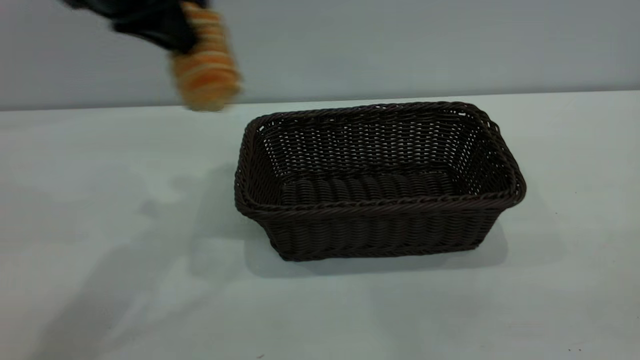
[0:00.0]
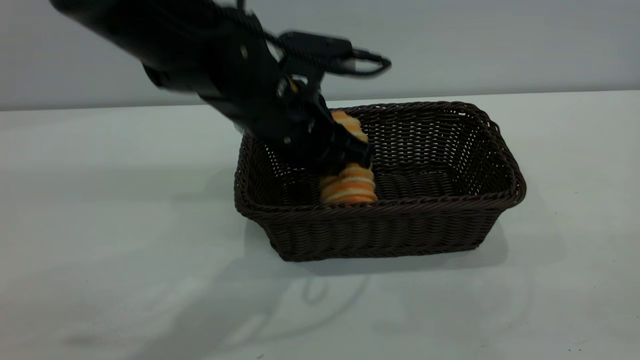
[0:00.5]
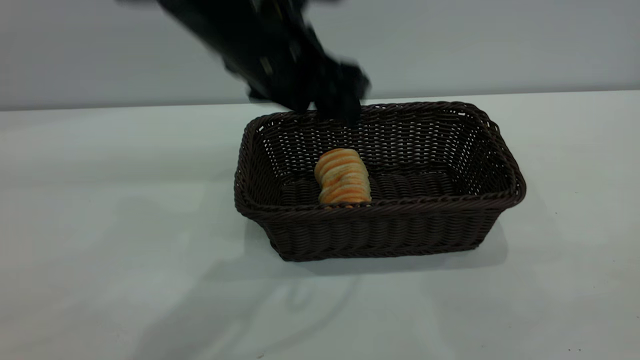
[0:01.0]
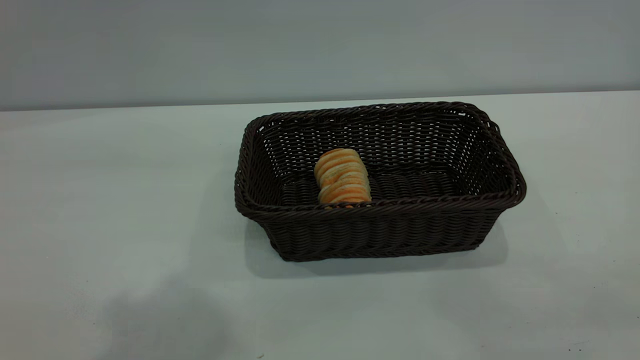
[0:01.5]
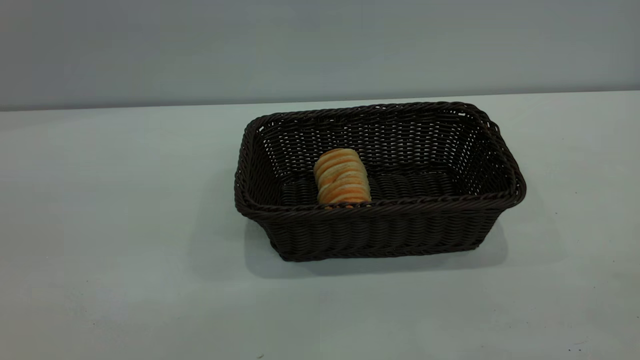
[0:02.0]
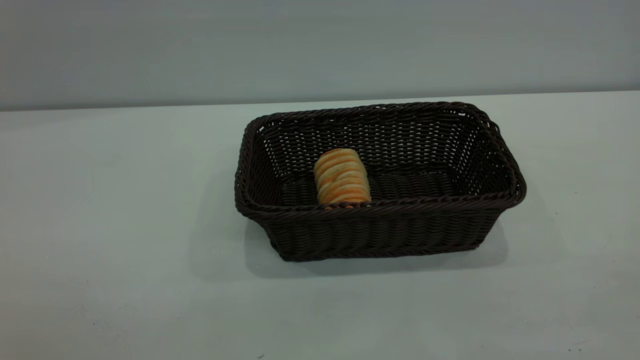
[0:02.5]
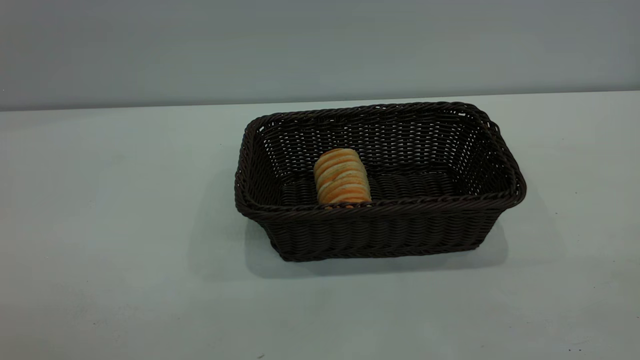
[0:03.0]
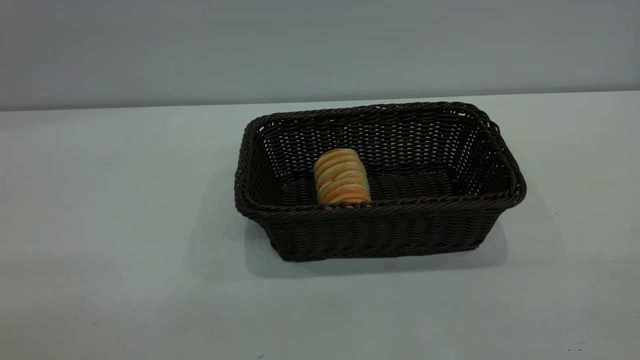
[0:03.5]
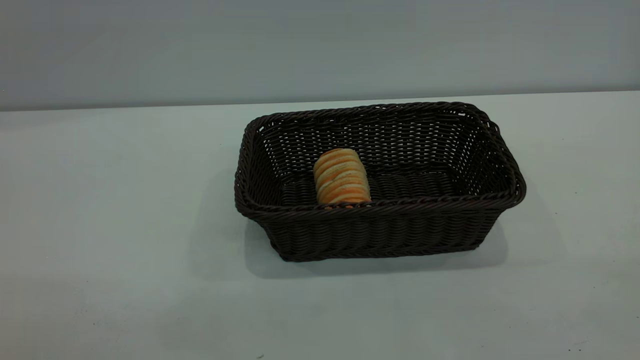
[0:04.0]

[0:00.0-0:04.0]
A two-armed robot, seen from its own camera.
Task of the whole recording: One hand grasps the black basket and places it in the middle of the table, while the other hand picks up the long bread and puts it into the black basket.
Step, 0:00.0 to 0:01.0: place the bread into the basket.
0:00.0 to 0:02.0: The left gripper swings up and down, roughly 30 cm each way, with 2 reversals, and opens.

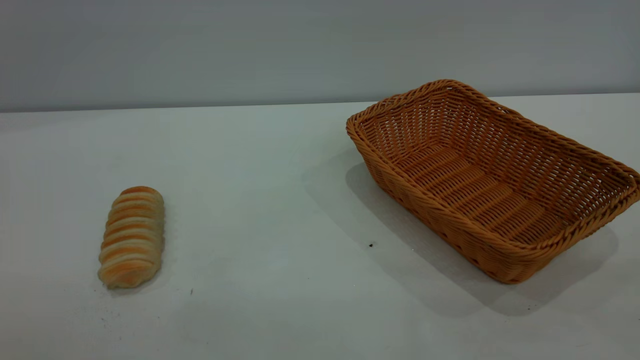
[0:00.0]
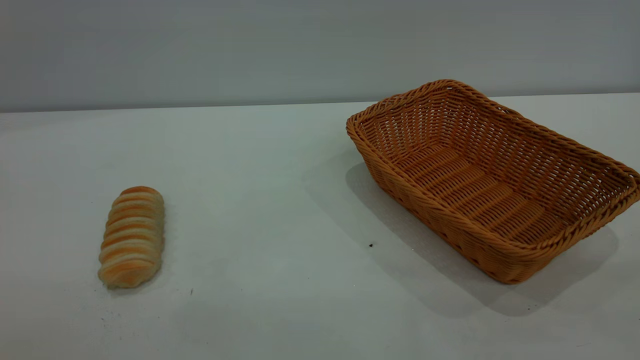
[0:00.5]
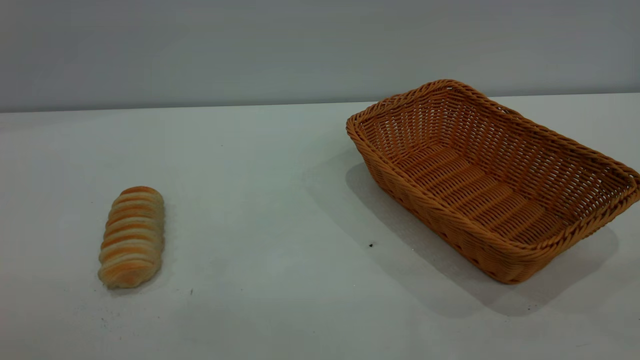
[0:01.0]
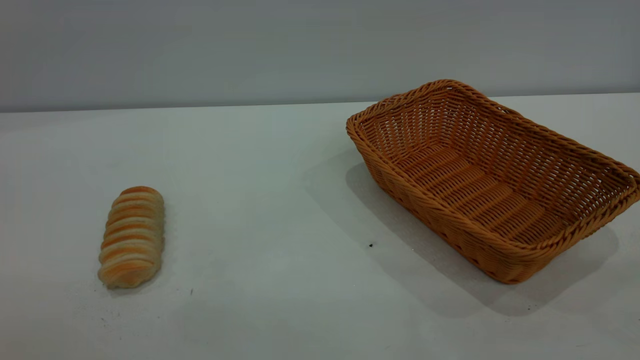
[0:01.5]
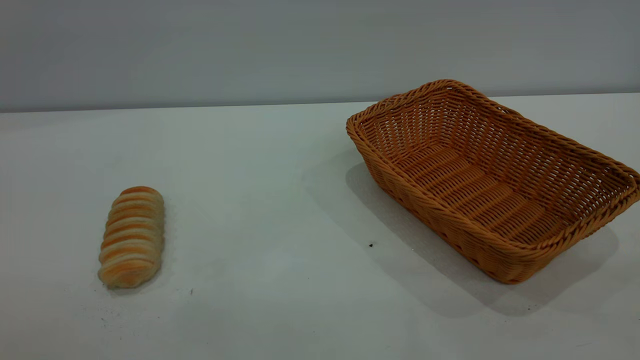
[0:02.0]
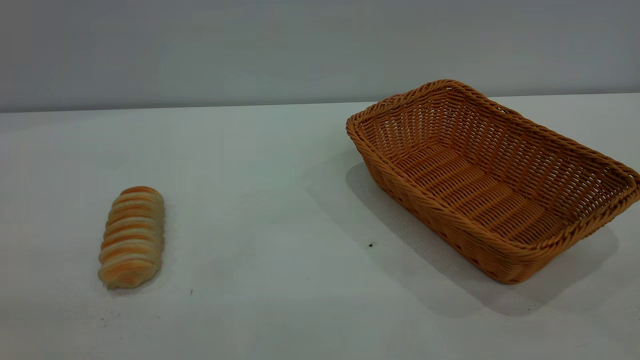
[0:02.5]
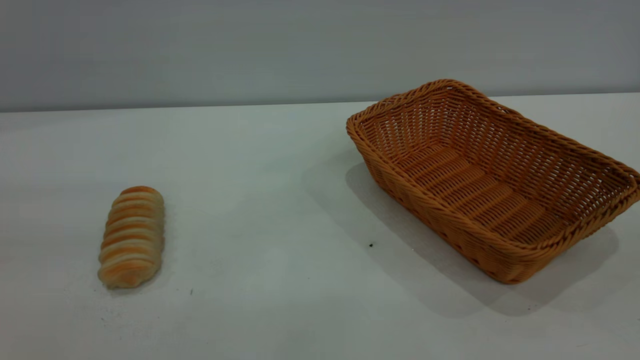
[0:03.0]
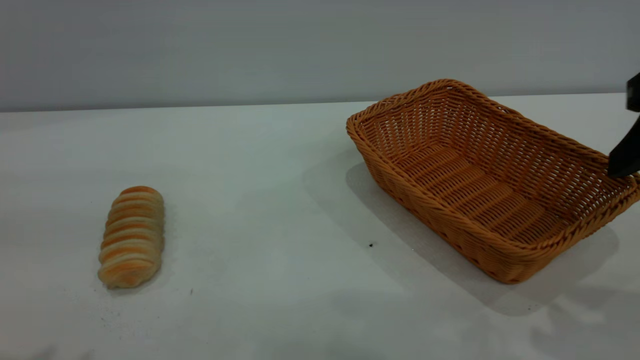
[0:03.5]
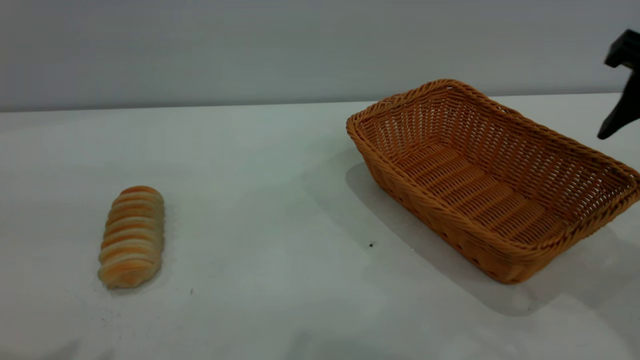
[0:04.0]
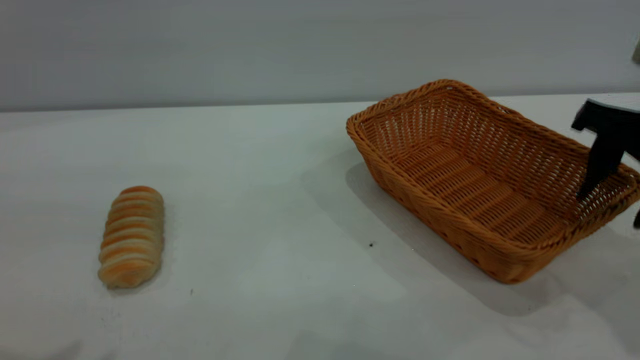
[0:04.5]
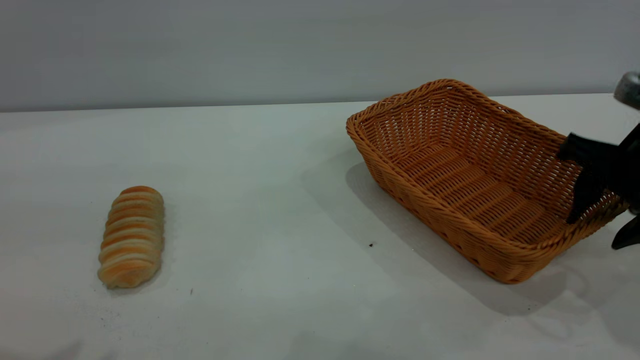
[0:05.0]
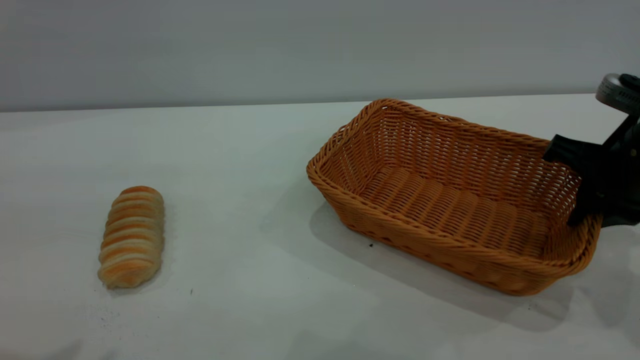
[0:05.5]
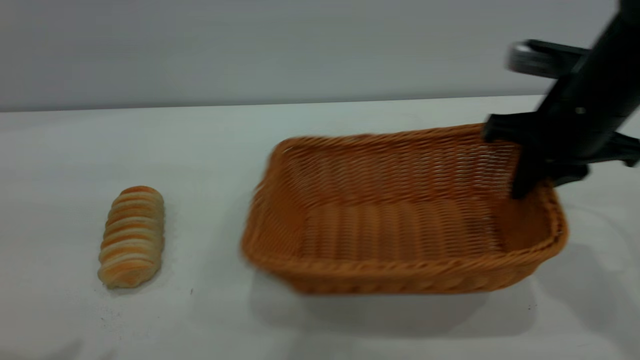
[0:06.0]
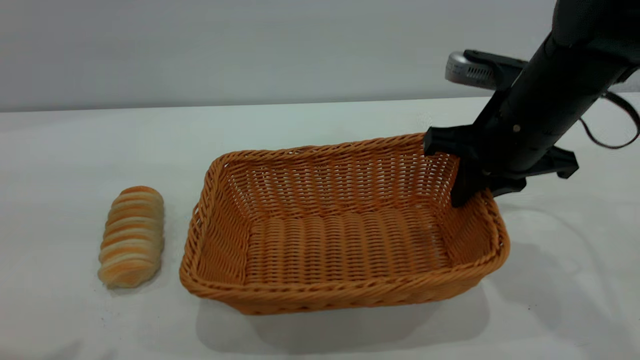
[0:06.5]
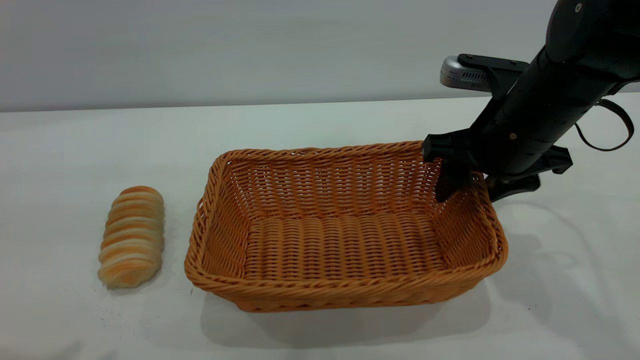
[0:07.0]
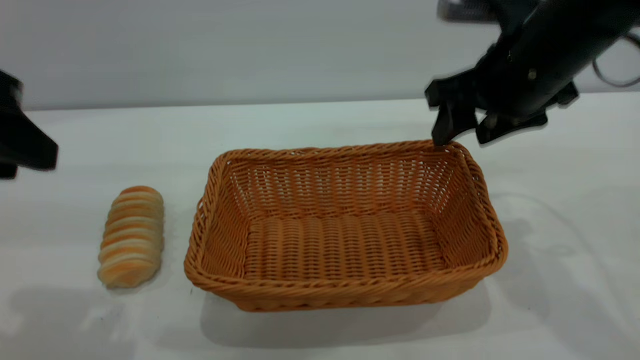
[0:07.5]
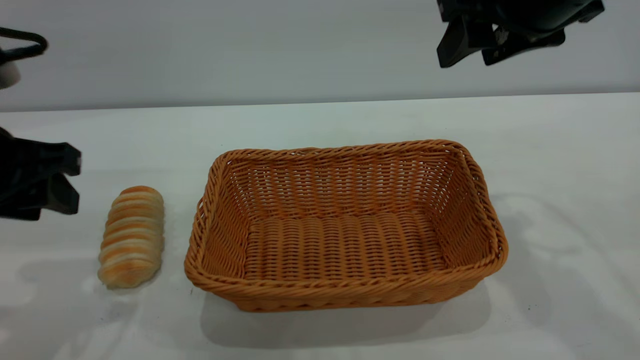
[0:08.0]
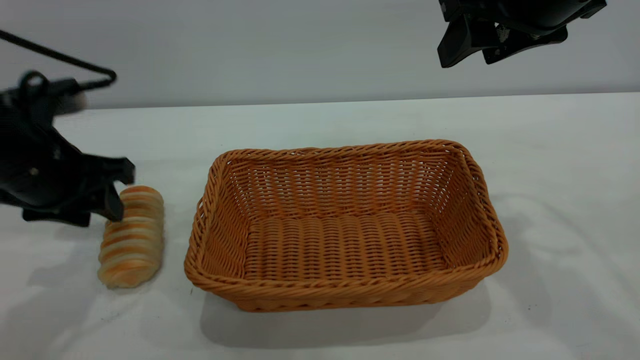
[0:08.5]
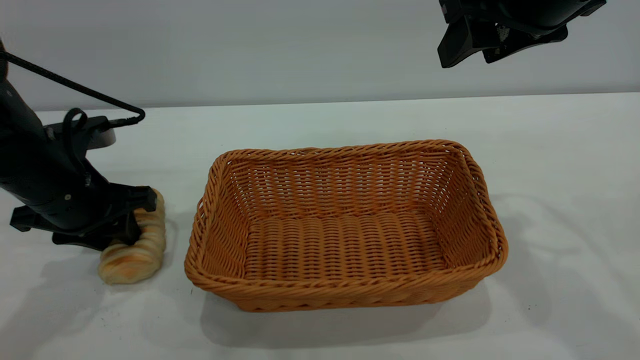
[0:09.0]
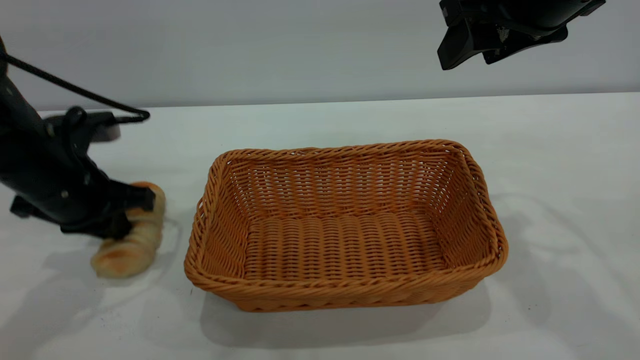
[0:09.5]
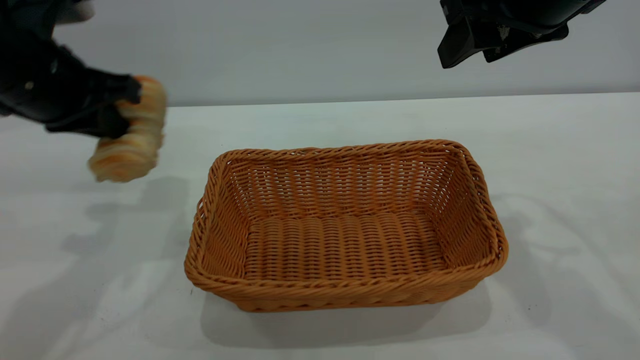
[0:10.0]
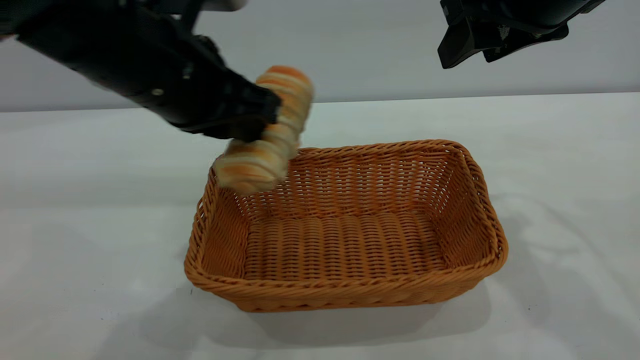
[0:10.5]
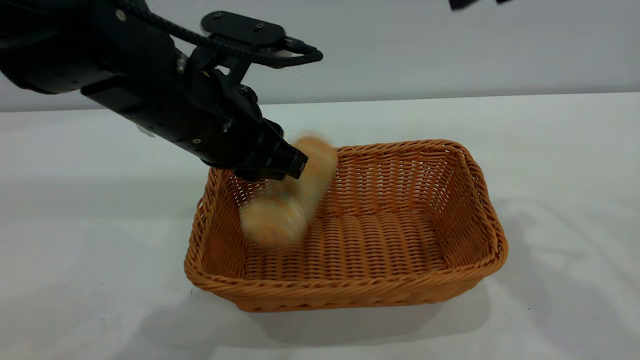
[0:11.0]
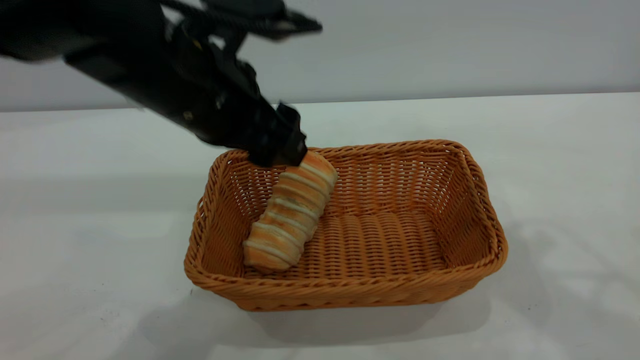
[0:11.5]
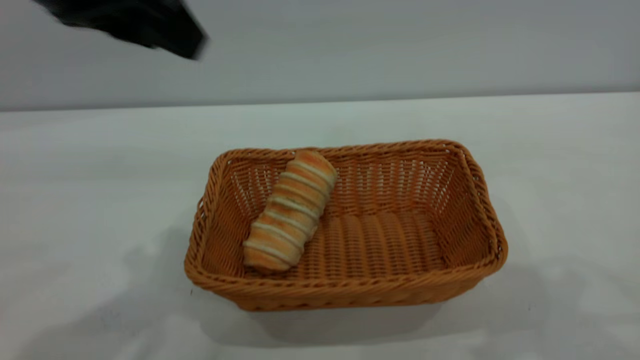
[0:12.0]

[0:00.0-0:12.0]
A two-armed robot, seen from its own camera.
Task of the whole recording: One hand grasps the yellow basket and places it in the middle of the table, while the other hand picks up the long bread and puts it into the yellow basket.
Step, 0:00.0 to 0:07.5: Move the basket to the center of view.
Step, 0:10.0 to 0:11.5: place the bread into the basket.
0:02.0 to 0:04.0: The right gripper moves forward, some 30 cm, and opens.
0:04.0 to 0:06.0: The right gripper heads forward, downward and to the left, covering roughly 10 cm, and closes up.
0:06.0 to 0:08.0: The right gripper goes some 10 cm upward, and opens; the left gripper is displaced downward and forward by about 20 cm.
0:08.0 to 0:10.0: The left gripper heads forward, covering approximately 5 cm, moves approximately 10 cm downward and comes back, and closes.
0:10.0 to 0:12.0: The left gripper heads upward, backward and to the right, covering about 15 cm, and opens, while the right gripper travels upward and backward by about 20 cm.

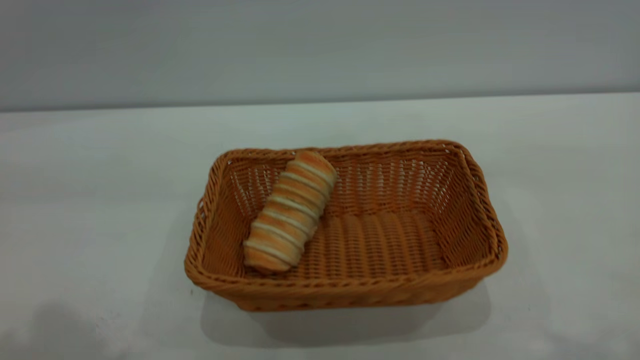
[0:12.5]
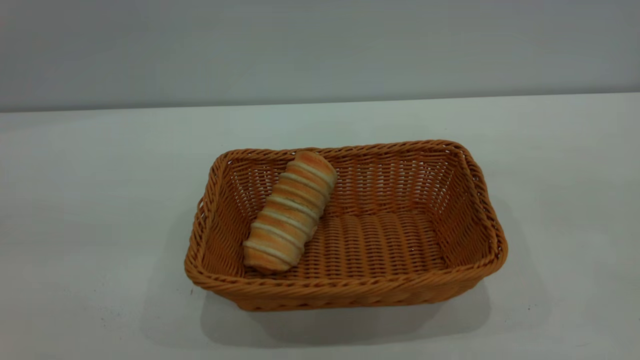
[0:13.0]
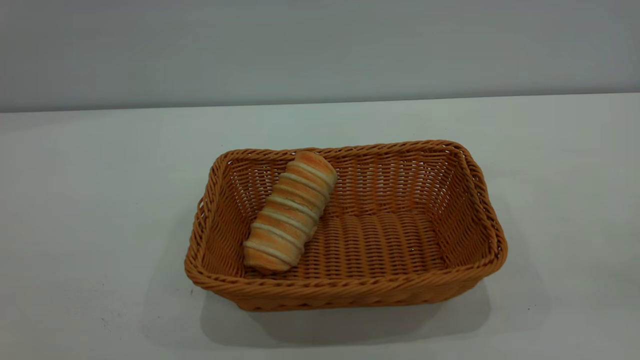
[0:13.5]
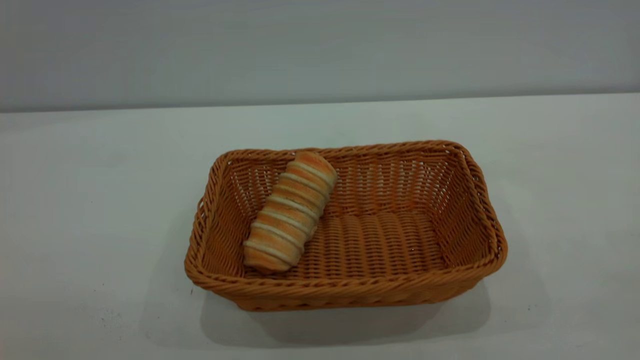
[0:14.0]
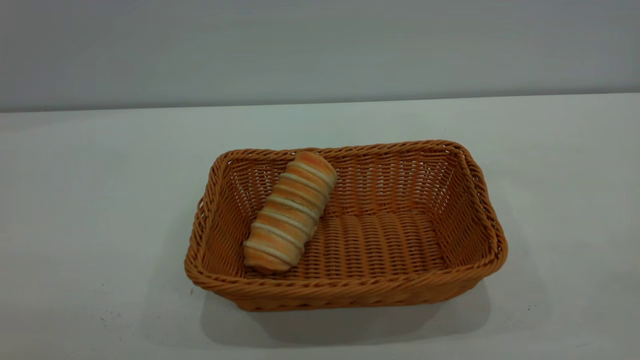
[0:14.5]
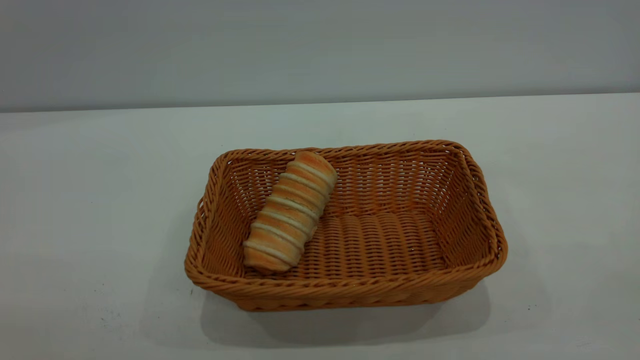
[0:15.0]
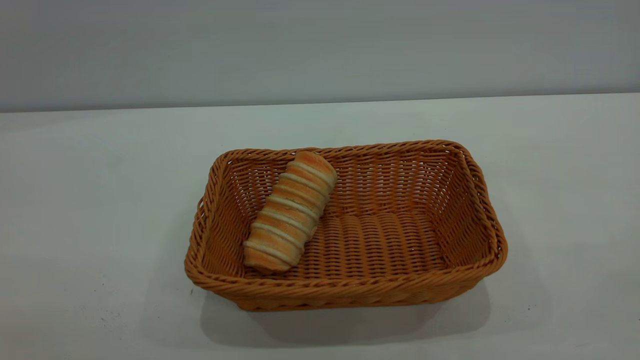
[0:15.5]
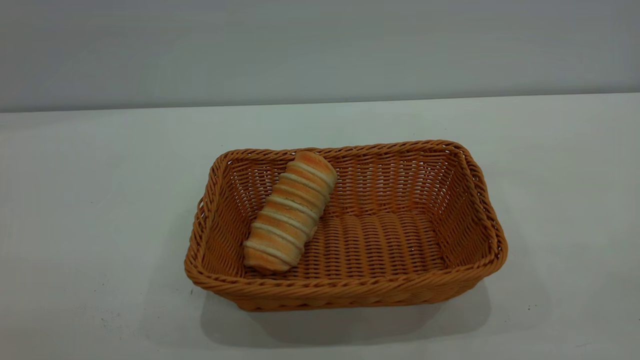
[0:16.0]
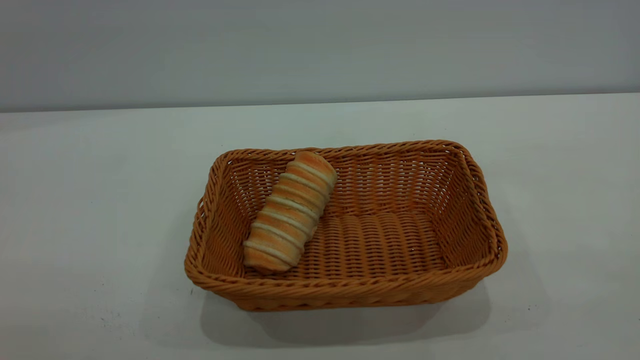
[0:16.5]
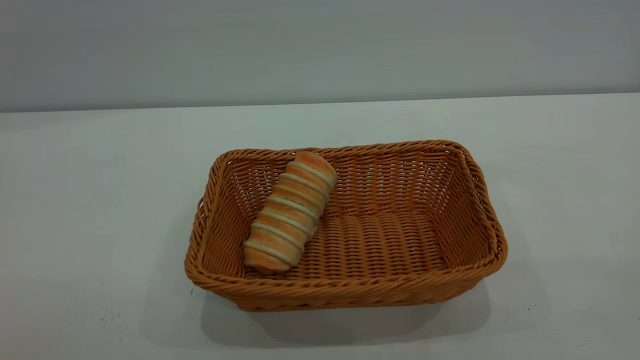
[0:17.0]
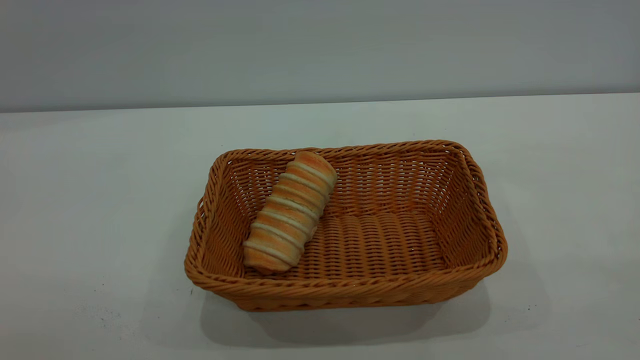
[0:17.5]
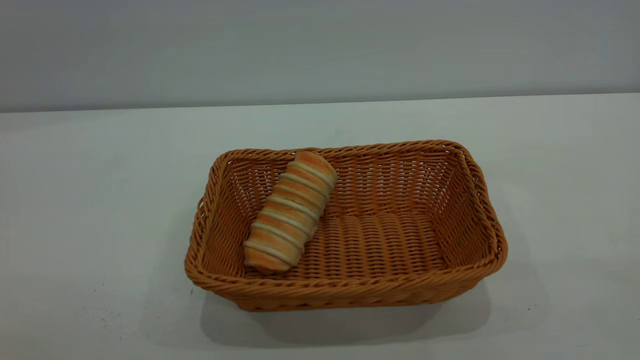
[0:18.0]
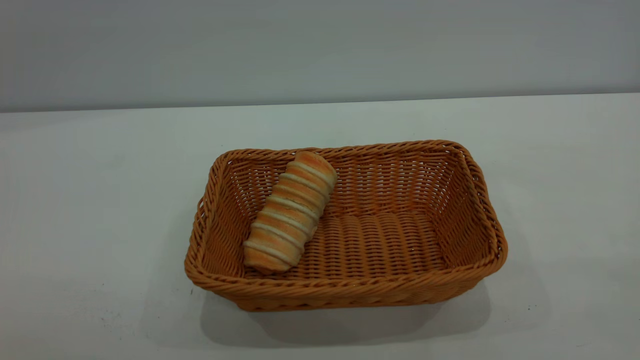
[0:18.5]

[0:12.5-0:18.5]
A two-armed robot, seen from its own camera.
Task of the whole recording: One hand grasps the yellow basket and places it in the middle of the table, while the other hand picks up the long bread and puts it into the yellow basket.
0:16.5 to 0:18.5: The two grippers keep their place.
